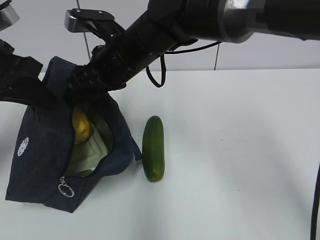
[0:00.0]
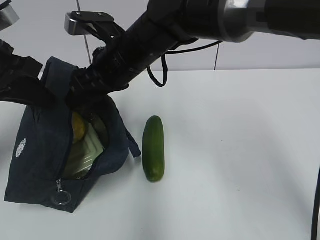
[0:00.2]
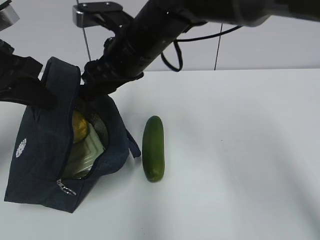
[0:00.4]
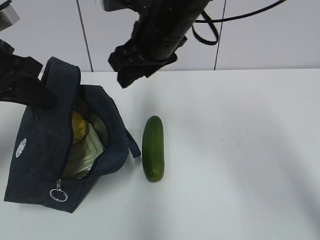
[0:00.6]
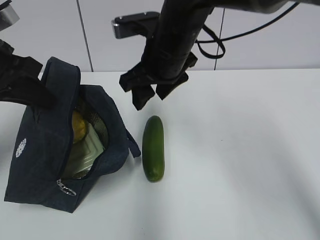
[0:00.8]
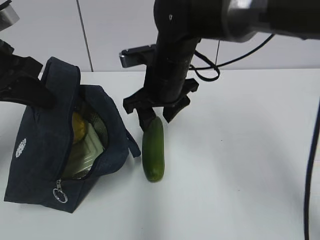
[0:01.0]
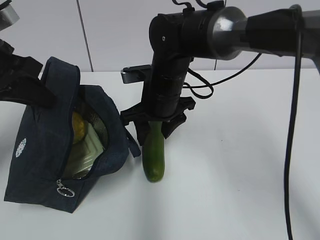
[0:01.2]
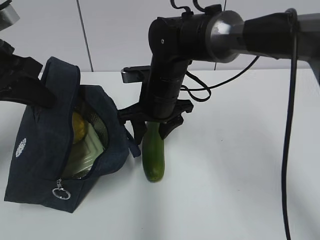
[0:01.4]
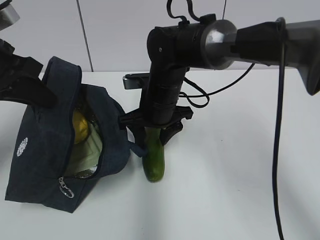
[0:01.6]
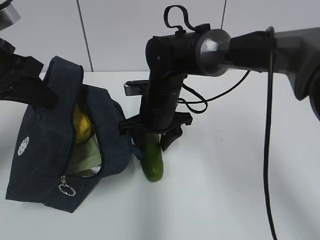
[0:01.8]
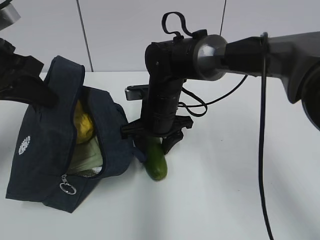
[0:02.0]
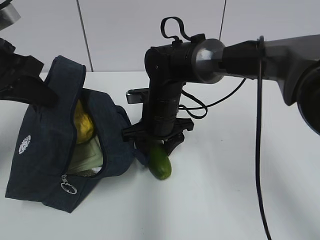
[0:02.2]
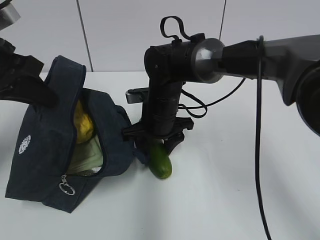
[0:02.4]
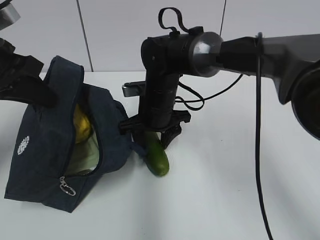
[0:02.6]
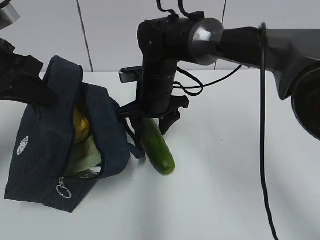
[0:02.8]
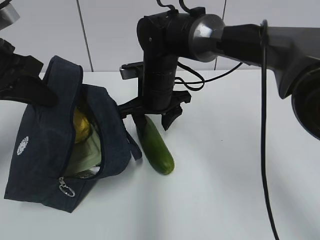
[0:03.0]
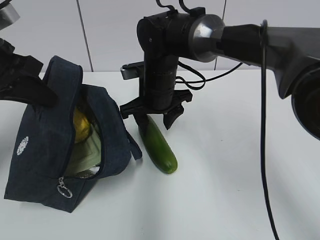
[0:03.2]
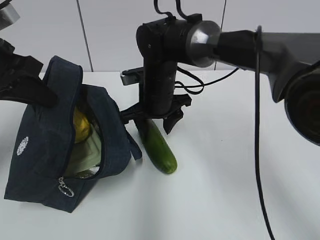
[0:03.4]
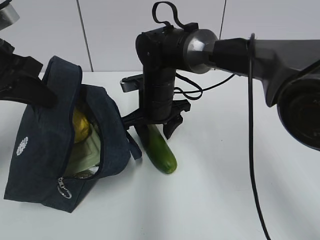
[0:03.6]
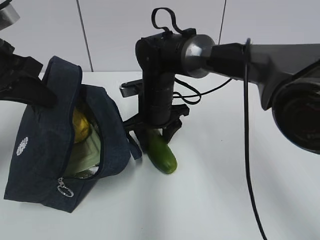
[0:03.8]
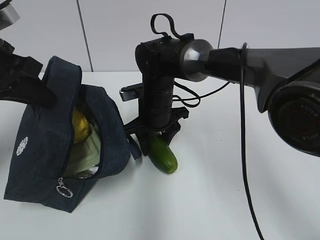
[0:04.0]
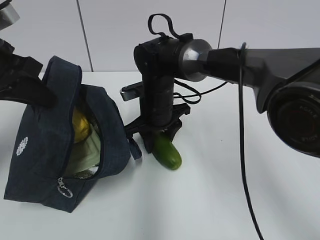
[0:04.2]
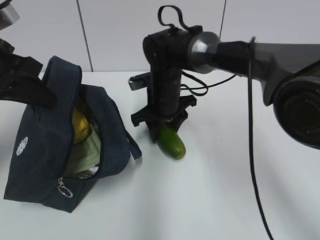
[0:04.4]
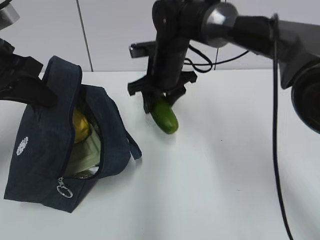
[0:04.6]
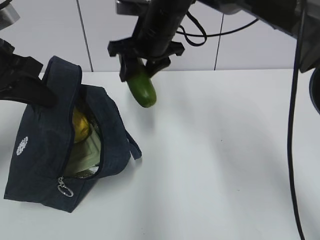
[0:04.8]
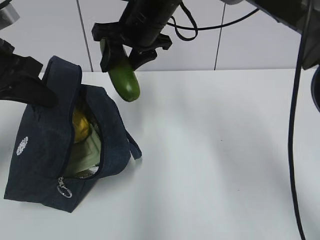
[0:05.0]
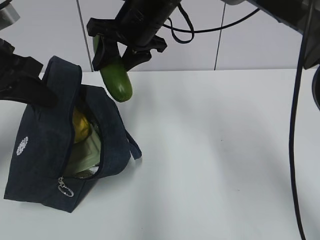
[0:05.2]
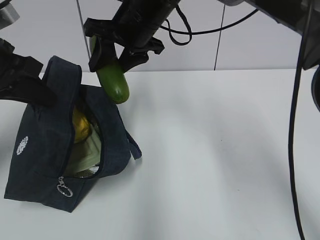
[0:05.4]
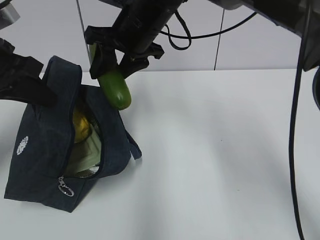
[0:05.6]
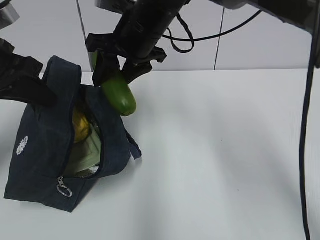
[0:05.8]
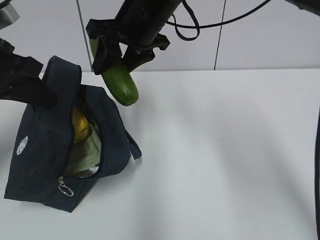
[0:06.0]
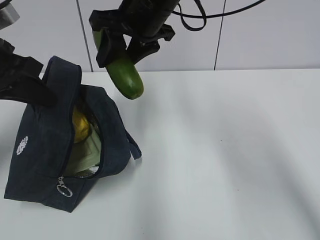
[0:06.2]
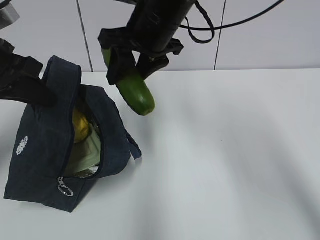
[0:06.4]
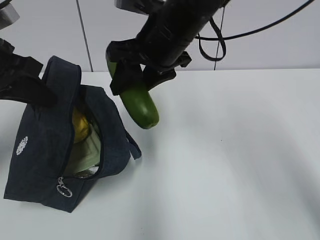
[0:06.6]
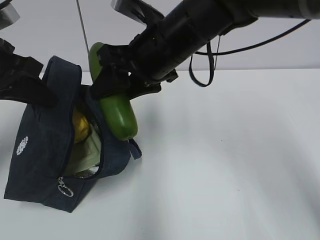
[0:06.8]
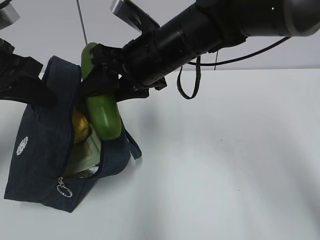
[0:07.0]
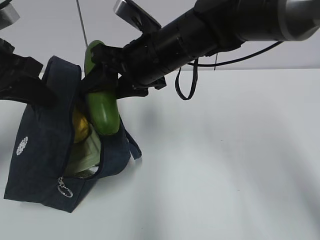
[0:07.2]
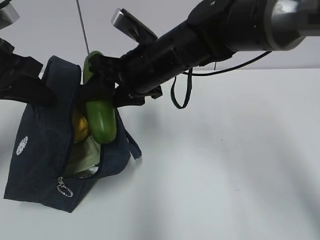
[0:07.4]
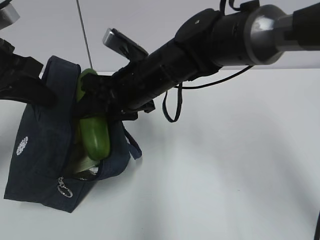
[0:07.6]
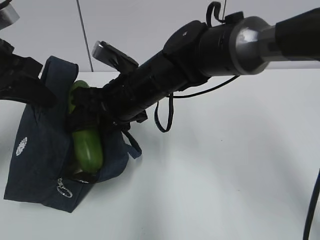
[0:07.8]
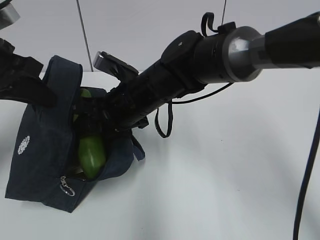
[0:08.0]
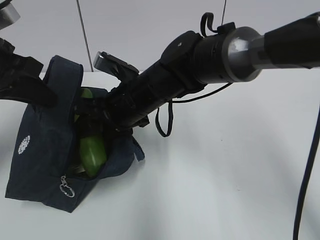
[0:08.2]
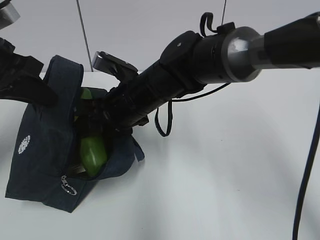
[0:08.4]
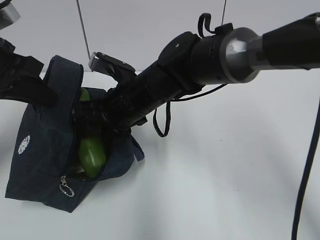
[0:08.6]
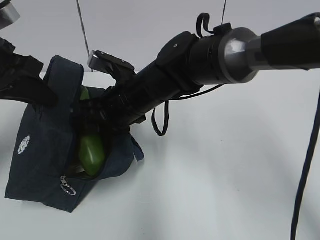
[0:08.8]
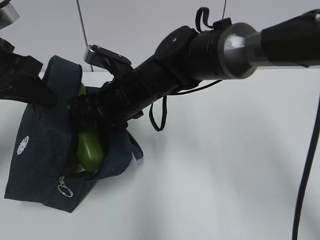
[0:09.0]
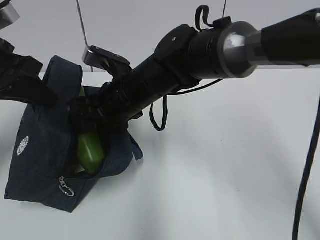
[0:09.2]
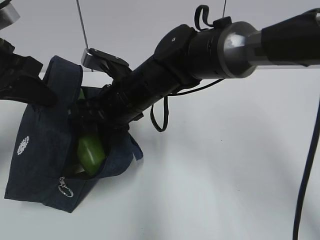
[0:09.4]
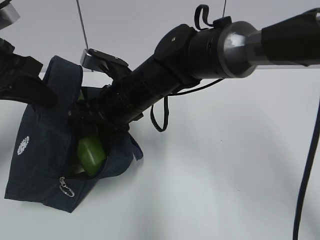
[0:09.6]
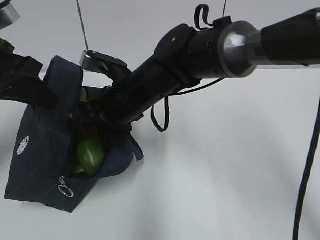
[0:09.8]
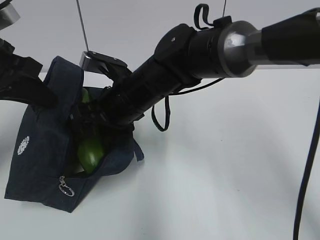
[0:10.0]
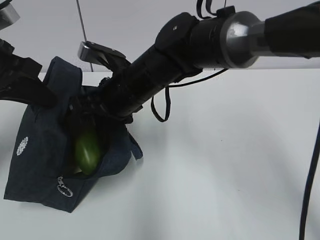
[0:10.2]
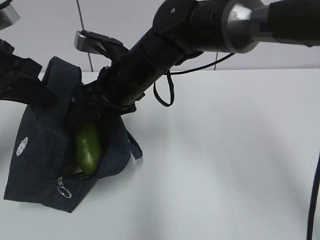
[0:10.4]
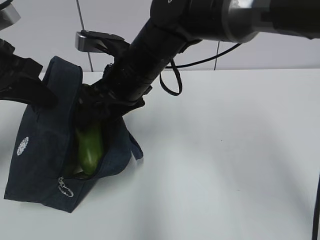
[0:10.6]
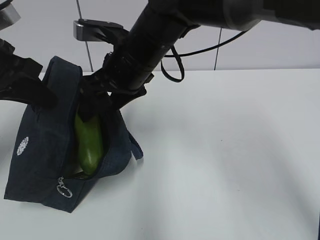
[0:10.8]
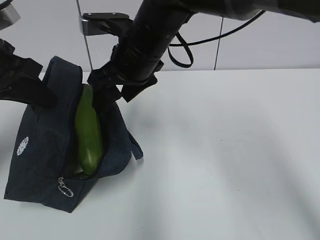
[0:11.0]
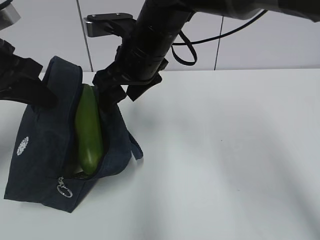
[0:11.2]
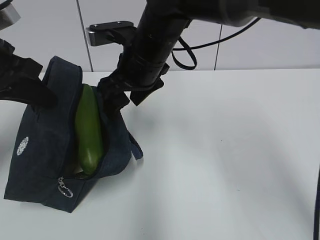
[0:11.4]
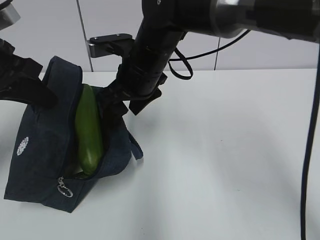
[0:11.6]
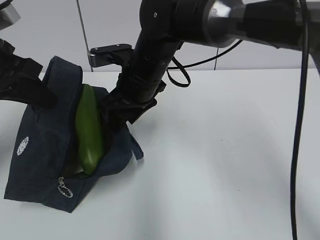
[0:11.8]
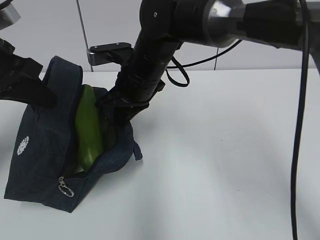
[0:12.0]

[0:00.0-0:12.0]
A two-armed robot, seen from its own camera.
Step, 0:00.6 to 0:02.0: Grab the cucumber with your right hand.
Step, 0:02.2 to 0:11.4: Place it into the bag with your right hand.
Step, 0:11.6 to 0:11.8: Grab the lunch bag with your right hand.
0:00.0 to 0:01.6: The right gripper is displaced downward by roughly 10 cm.
0:01.6 to 0:03.0: The grippers move only a little.
0:04.4 to 0:06.0: The right gripper shifts some 15 cm upward.
0:06.0 to 0:07.6: The right gripper moves downward, roughly 10 cm.
0:07.6 to 0:09.0: The grippers stay close to where they were, moving slightly.
0:10.4 to 0:12.0: The right gripper closes its fingers.

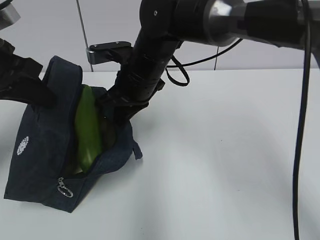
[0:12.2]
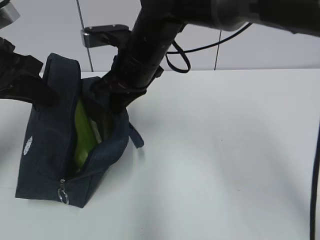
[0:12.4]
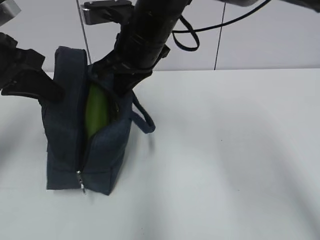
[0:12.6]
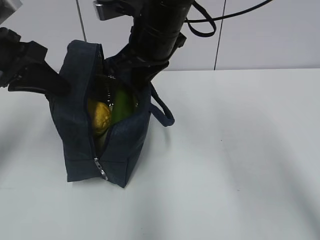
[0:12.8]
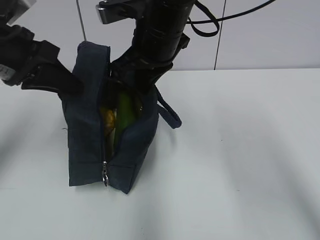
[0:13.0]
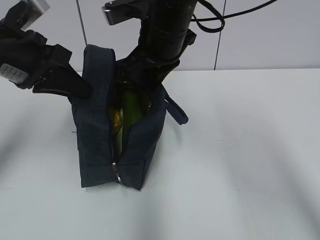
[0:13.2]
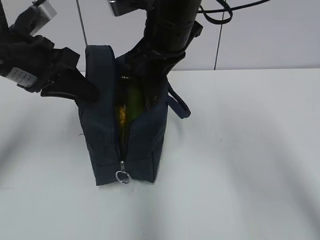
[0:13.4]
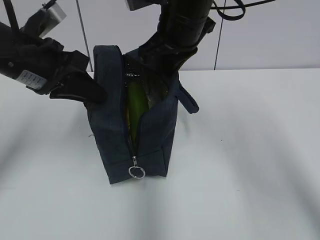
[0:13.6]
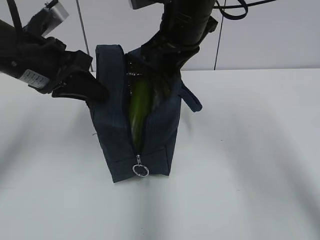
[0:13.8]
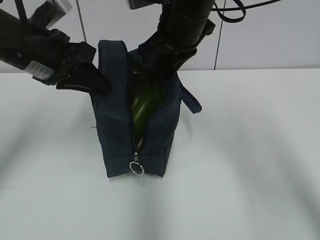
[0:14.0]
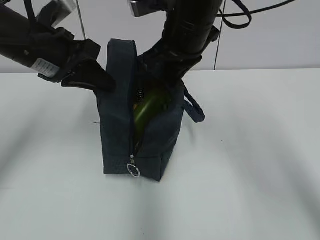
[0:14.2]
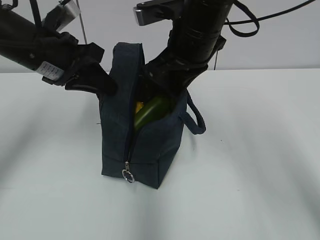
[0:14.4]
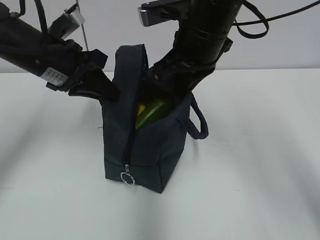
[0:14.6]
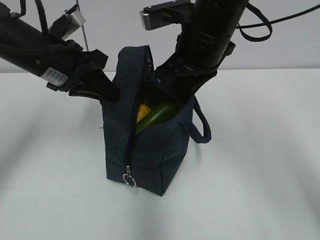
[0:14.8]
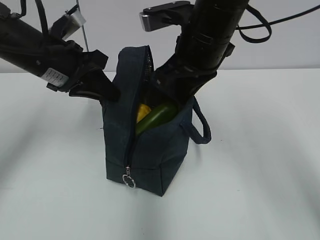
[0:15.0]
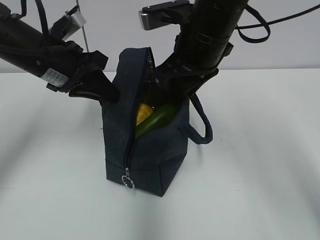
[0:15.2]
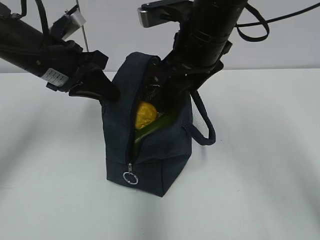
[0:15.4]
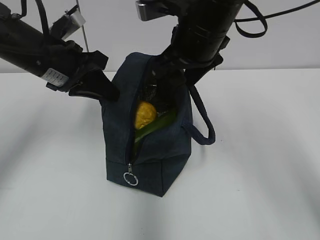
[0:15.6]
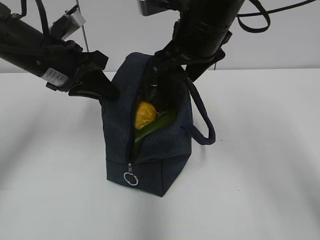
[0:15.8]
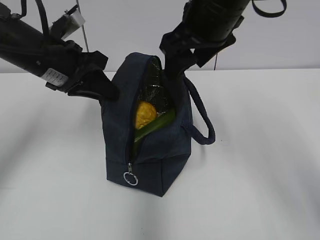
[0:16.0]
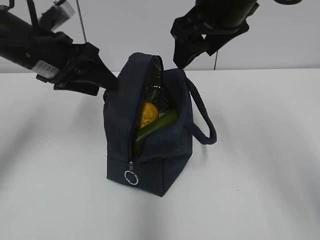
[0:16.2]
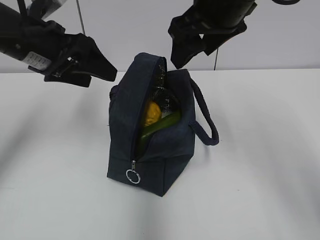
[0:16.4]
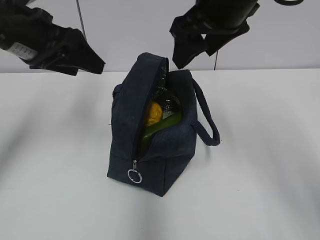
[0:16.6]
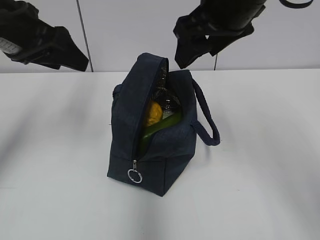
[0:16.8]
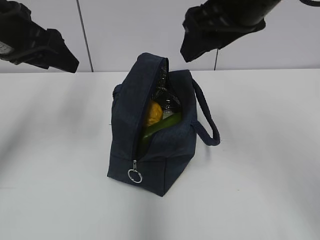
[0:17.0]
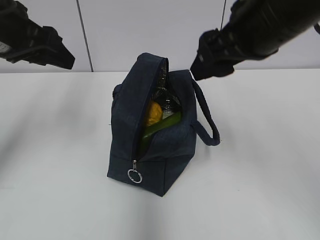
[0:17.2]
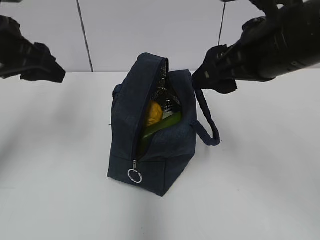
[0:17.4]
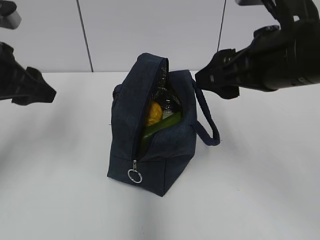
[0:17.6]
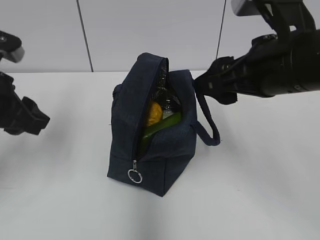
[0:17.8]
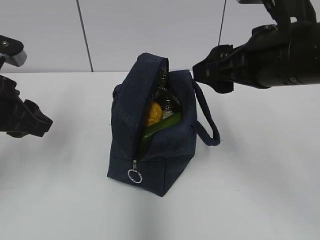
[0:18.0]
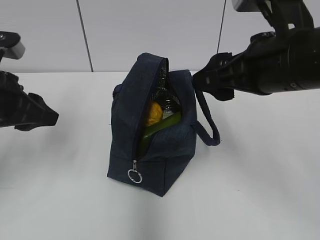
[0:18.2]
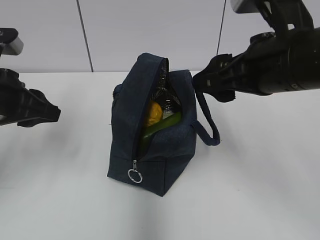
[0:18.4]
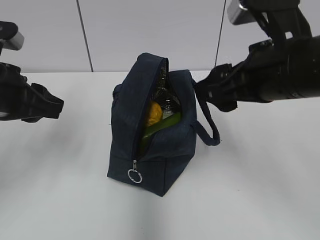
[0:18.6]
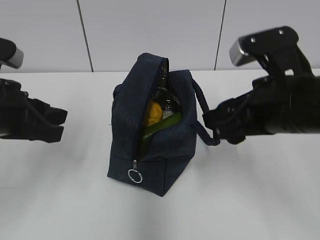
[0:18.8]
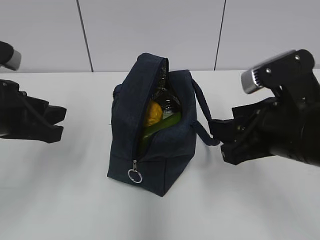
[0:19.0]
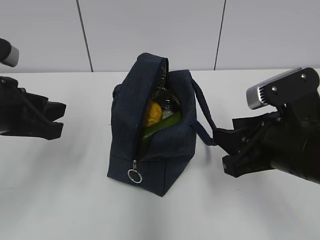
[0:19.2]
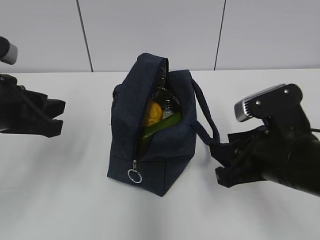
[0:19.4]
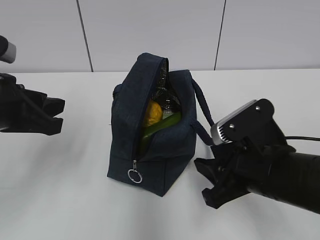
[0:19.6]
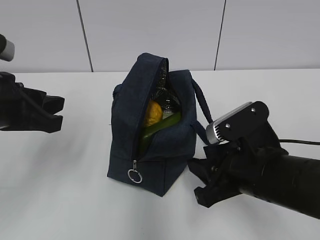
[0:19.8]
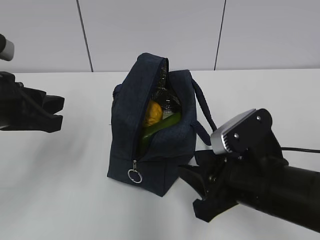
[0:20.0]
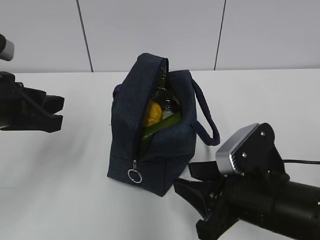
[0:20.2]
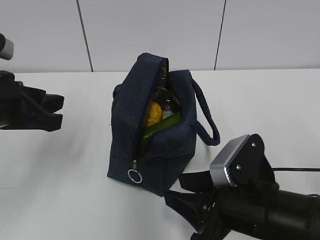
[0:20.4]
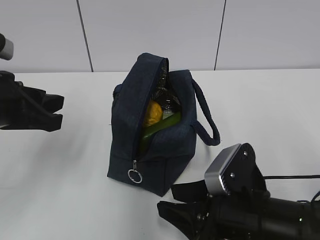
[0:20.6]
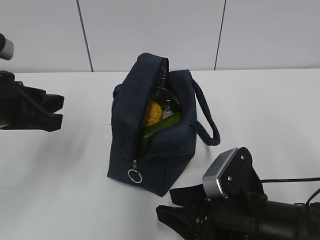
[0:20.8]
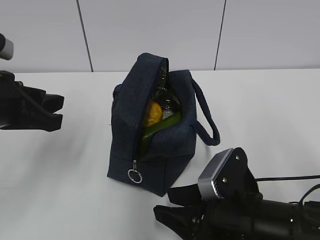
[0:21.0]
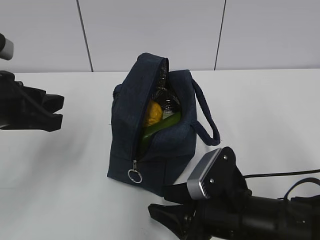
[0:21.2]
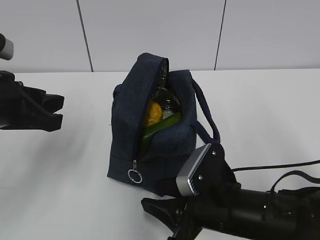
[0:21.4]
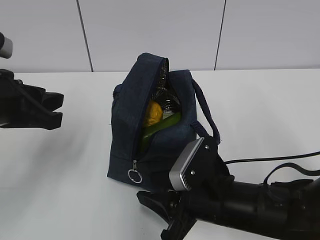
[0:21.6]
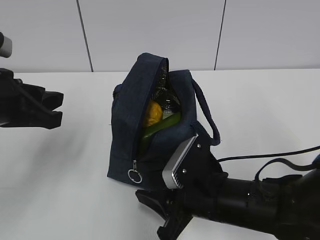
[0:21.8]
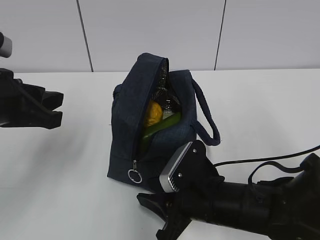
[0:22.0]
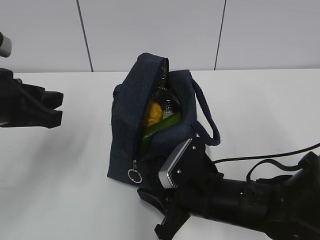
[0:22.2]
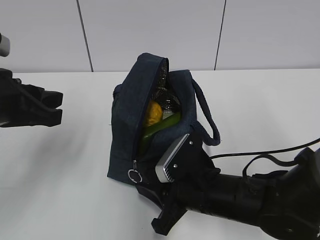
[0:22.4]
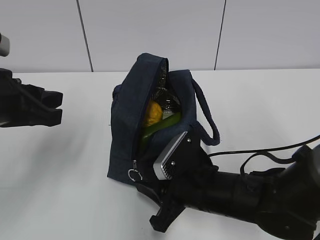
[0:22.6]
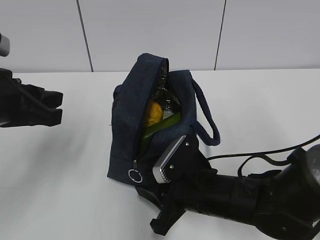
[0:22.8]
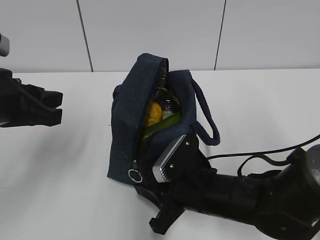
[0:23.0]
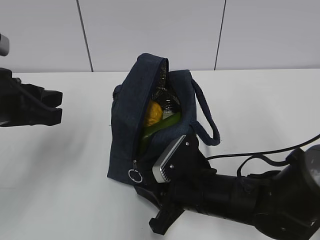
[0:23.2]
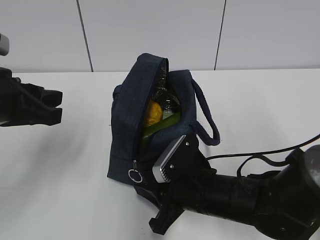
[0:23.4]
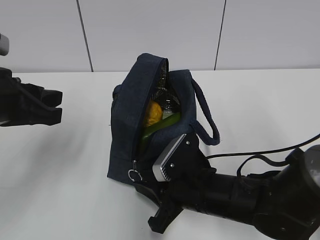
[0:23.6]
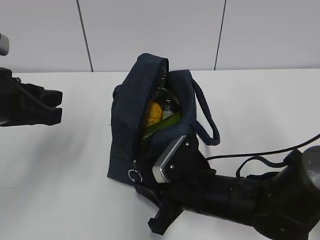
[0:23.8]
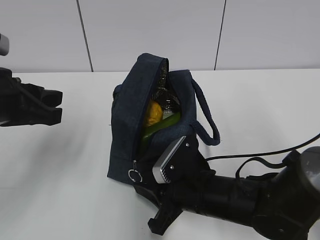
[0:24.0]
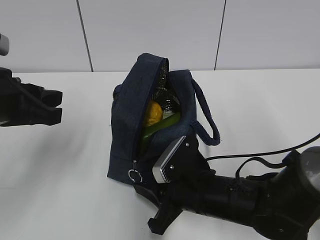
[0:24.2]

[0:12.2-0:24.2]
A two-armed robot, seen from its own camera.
Step, 0:12.2 to 0:13.6: Move the lunch bag to the left.
Step, 0:14.0 to 0:15.4: Move the lunch bag to the right.
0:12.2 to 0:13.8: The right gripper goes some 10 cm upward and to the right. Meanwhile the left gripper moves to the right, some 5 cm.
0:13.8 to 0:15.2: The right gripper opens its fingers.
0:15.2 to 0:16.6: The two grippers go approximately 5 cm upward. The left gripper opens up; the right gripper opens its fingers.
0:16.6 to 0:18.2: The right gripper goes roughly 10 cm backward and downward. Meanwhile the left gripper goes roughly 10 cm downward and backward, and closes up.
0:18.2 to 0:19.8: The right gripper goes some 15 cm downward, and closes its fingers.
0:19.8 to 0:21.2: The right gripper goes about 5 cm downward.
0:21.2 to 0:22.6: The right gripper moves approximately 5 cm.
0:22.6 to 0:24.2: Both grippers stay put.
